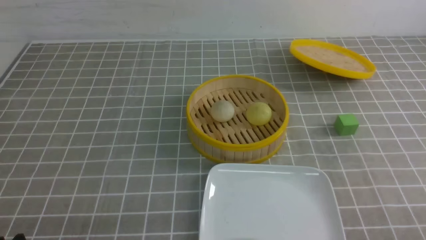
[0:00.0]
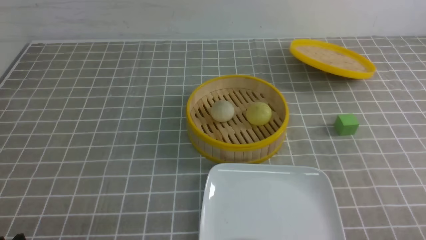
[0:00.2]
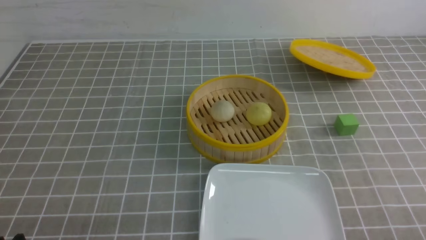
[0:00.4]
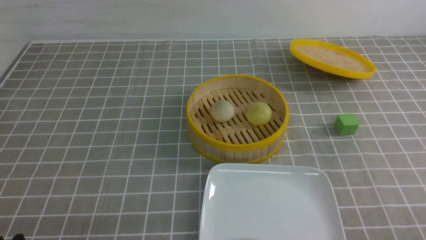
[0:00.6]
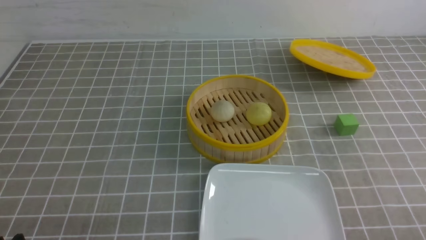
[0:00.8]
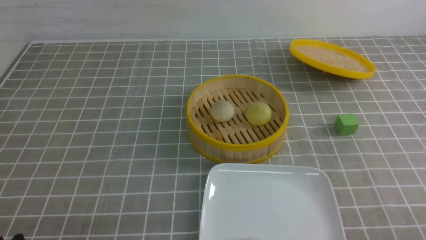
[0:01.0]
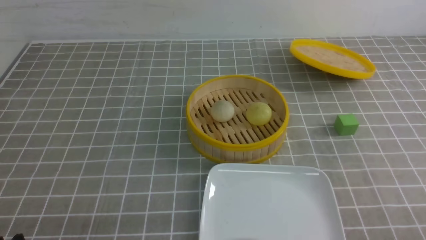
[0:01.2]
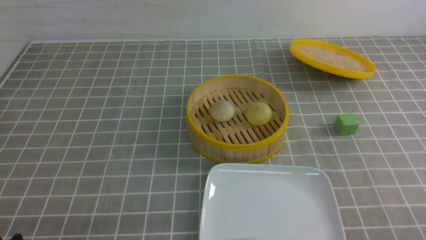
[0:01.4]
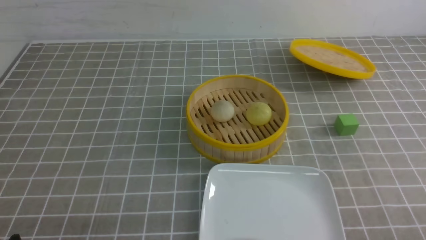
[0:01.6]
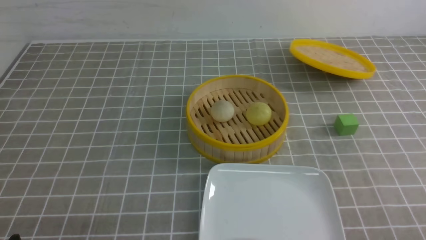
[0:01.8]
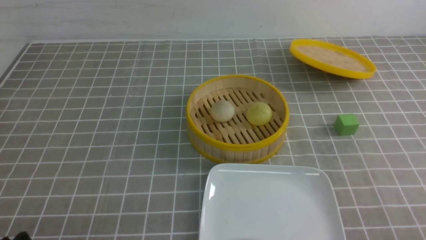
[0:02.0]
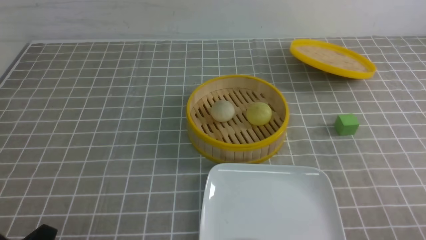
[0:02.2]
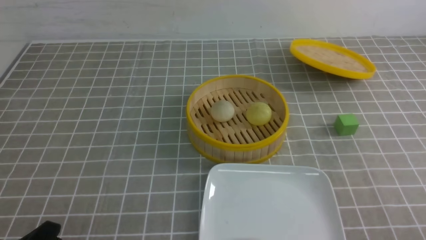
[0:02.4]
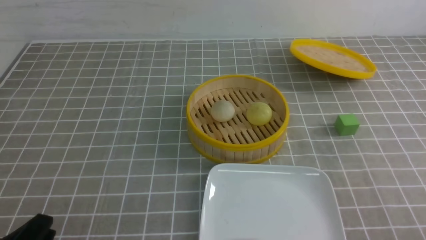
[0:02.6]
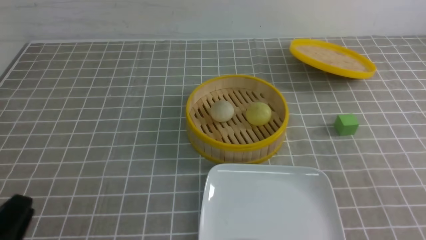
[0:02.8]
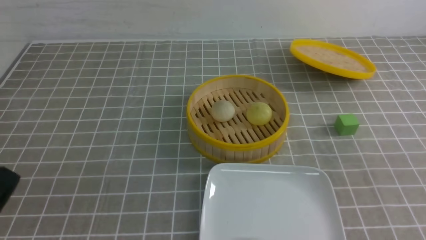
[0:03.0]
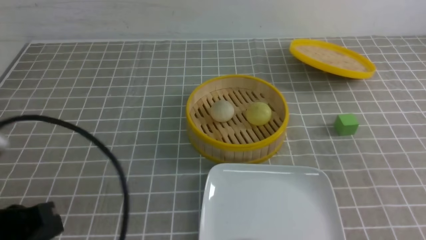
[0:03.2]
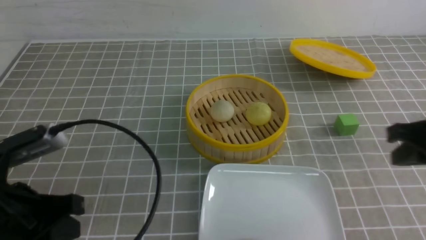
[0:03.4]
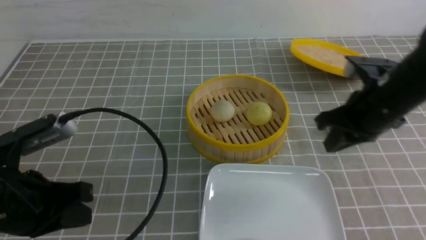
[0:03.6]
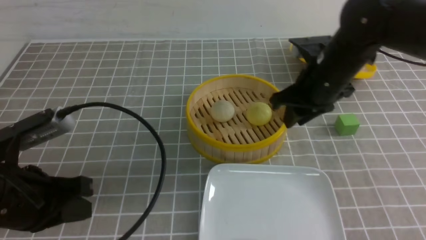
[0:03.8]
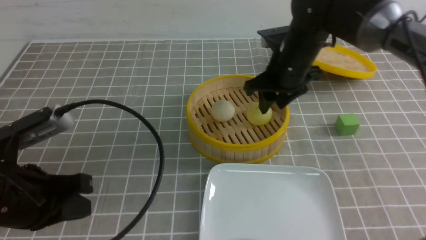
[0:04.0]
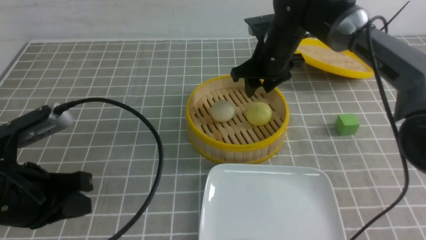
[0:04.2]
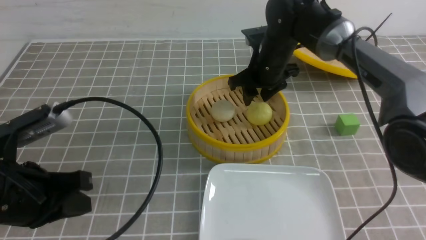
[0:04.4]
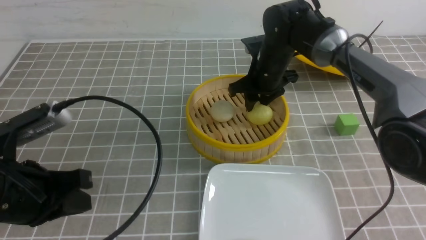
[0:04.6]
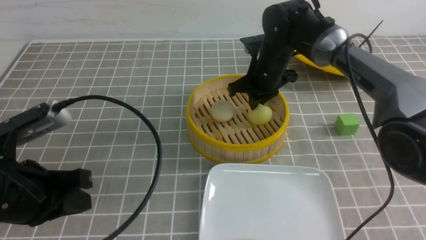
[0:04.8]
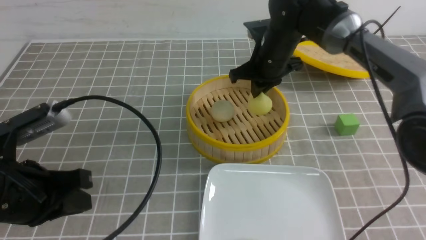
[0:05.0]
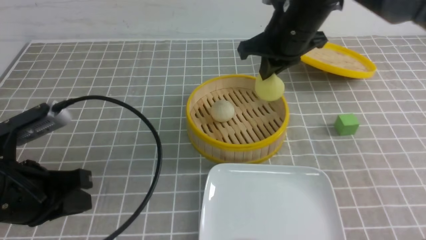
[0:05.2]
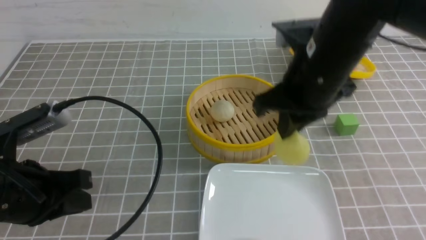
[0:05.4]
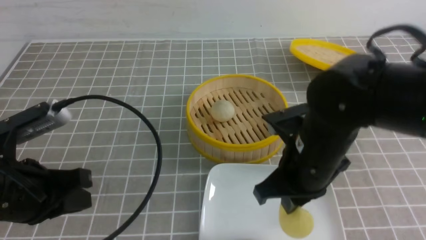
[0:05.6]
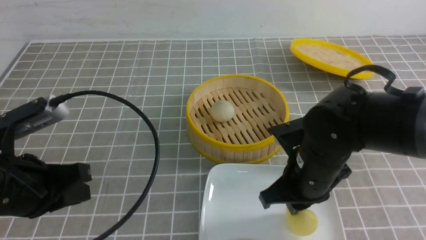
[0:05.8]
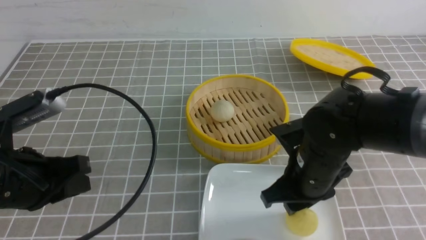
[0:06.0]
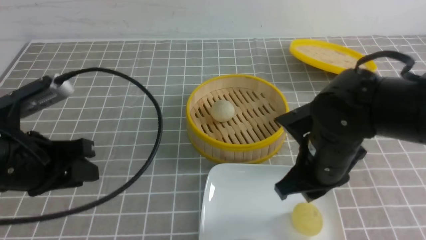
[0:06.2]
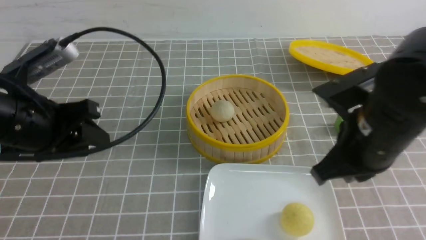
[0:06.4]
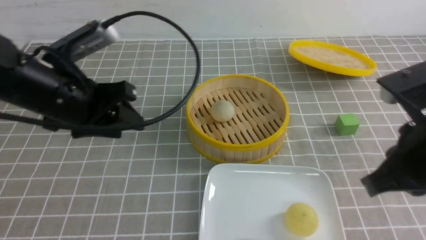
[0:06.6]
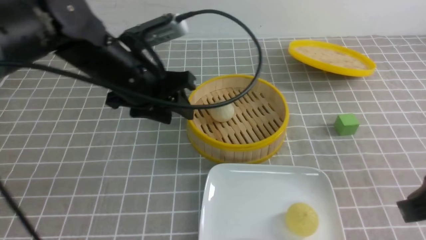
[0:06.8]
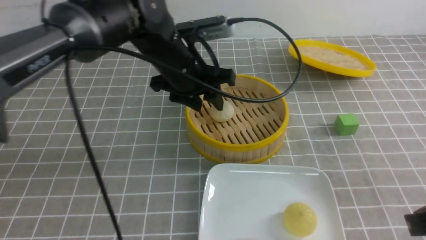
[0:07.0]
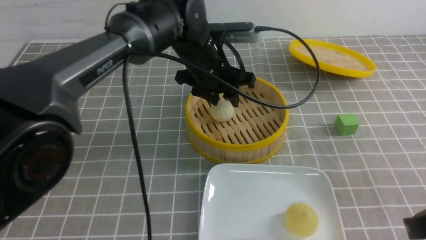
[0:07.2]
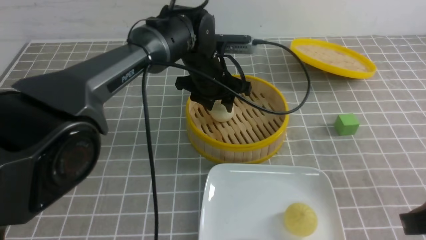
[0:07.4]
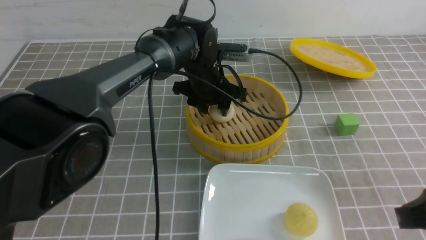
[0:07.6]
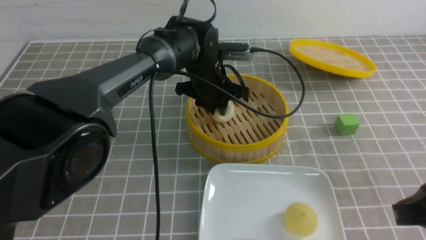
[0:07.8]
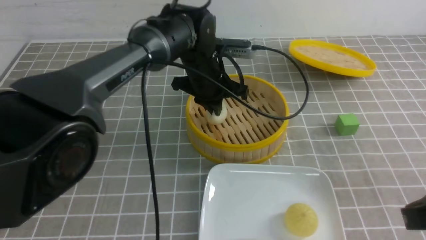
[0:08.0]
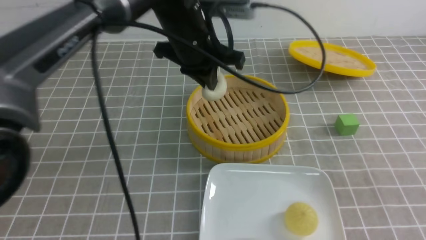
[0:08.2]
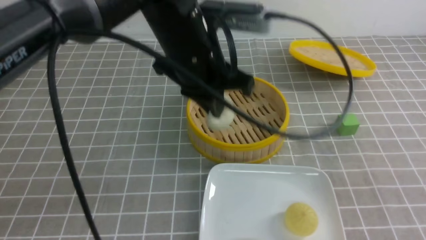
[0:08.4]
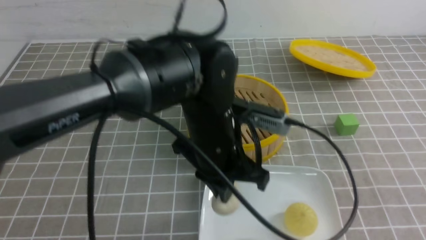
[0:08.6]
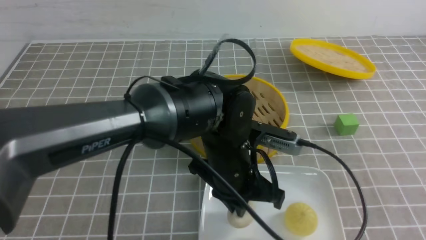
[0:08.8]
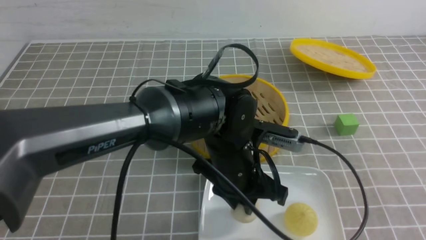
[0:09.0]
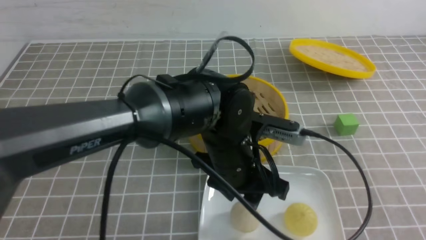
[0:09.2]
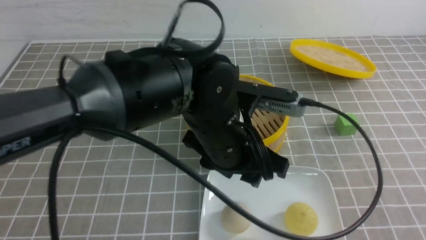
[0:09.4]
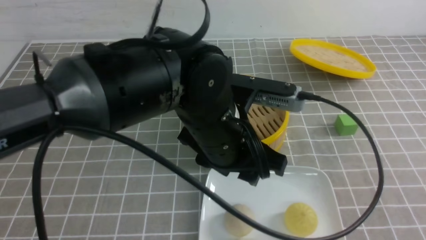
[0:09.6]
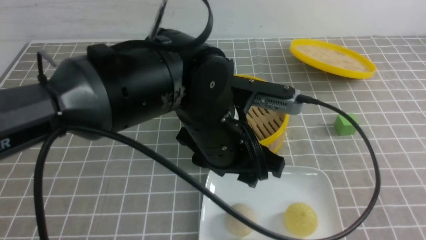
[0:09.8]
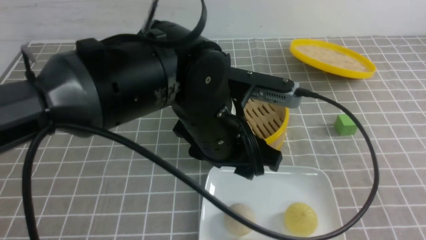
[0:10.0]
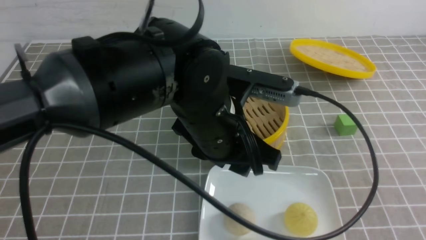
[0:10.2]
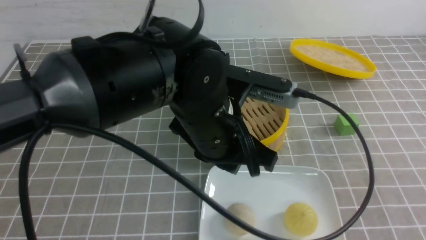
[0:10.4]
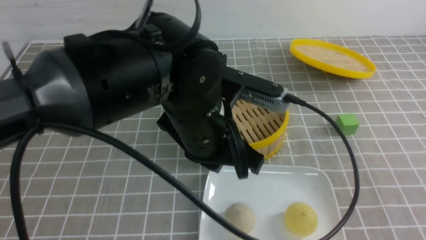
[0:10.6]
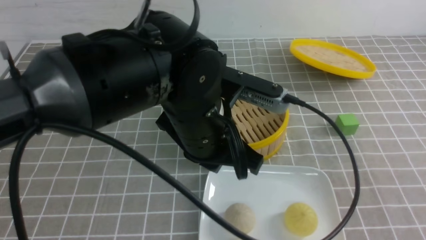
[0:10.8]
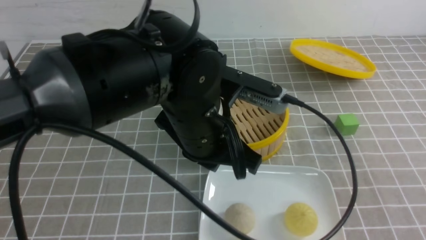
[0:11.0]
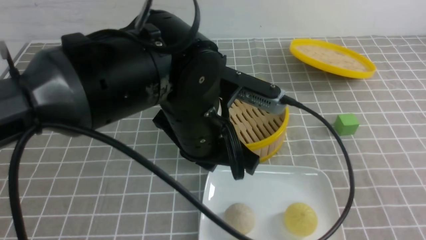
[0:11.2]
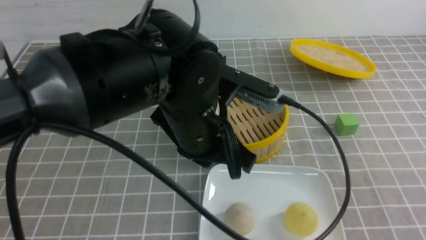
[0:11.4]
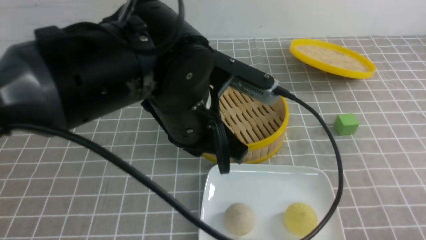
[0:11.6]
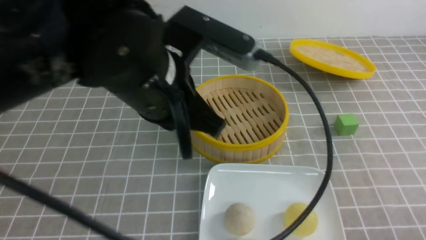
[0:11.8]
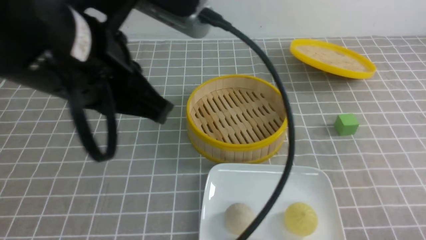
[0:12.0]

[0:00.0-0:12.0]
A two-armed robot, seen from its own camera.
Step, 0:00.0 to 0:04.8: use the right arm to grab the steamed stuffed bun that is closest to it.
Step, 0:05.2 to 0:05.8: use the right arm to put the steamed stuffed bun into the plate.
Step, 0:06.0 to 0:08.0: use the left arm to grab the steamed stuffed bun that is closest to it.
Step, 0:08.2 to 0:09.0: use the left arm to put the steamed stuffed bun into the plate.
0:03.0 to 0:04.4: The left gripper is displaced forward by some 10 cm. Meanwhile the right gripper travels forward and to the left by some 40 cm, and opens its fingers.
0:04.4 to 0:06.0: The right gripper shifts some 20 cm backward, and closes.
0:06.0 to 0:07.6: The right gripper heads backward, to the right and upward, covering about 20 cm, and closes its fingers. The left gripper moves forward and to the right, about 35 cm, and opens its fingers.
0:07.6 to 0:09.0: The right gripper goes roughly 10 cm to the right and backward, while the left gripper shifts some 20 cm backward, and closes.
0:09.0 to 0:10.4: The left gripper shifts some 10 cm upward, and opens and closes again.
0:10.4 to 0:12.0: The right gripper heads downward, covering some 15 cm. Meanwhile the left gripper shifts some 15 cm upward and to the left, and closes its fingers.

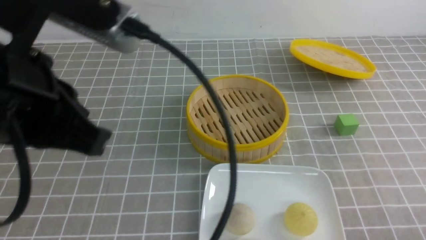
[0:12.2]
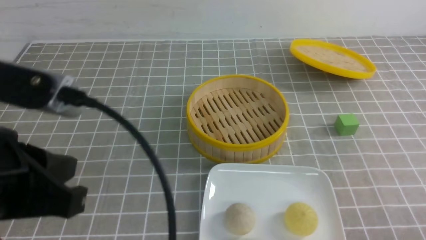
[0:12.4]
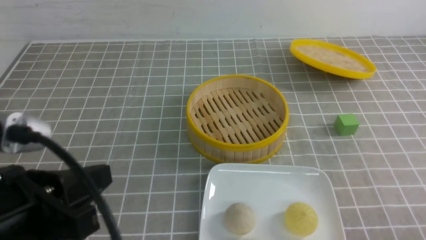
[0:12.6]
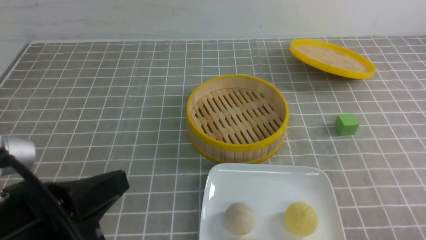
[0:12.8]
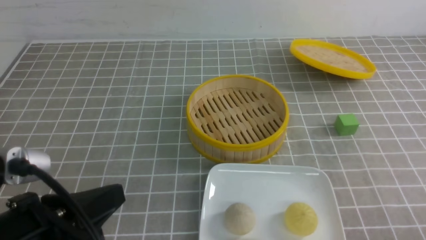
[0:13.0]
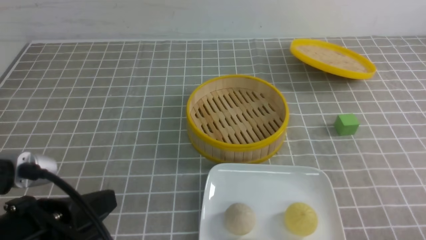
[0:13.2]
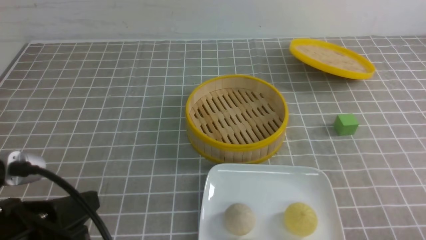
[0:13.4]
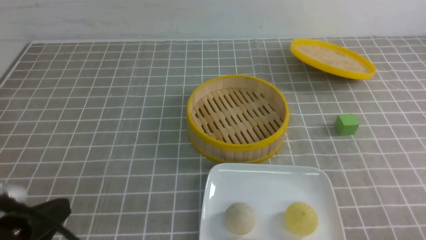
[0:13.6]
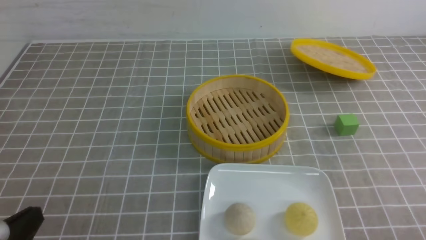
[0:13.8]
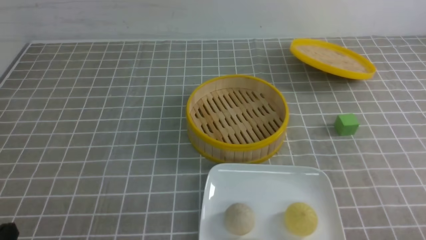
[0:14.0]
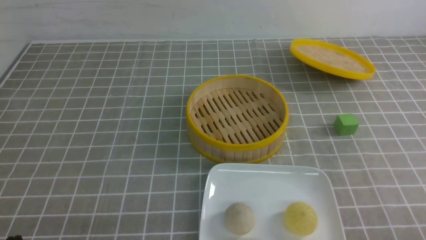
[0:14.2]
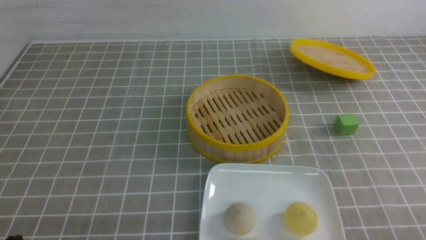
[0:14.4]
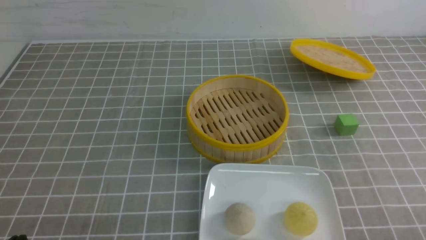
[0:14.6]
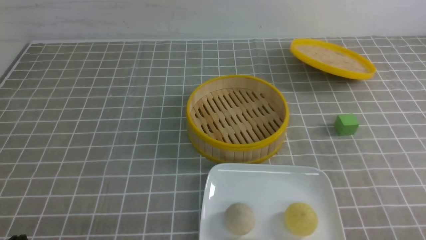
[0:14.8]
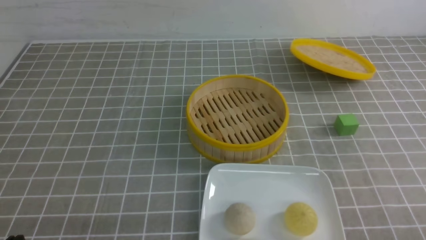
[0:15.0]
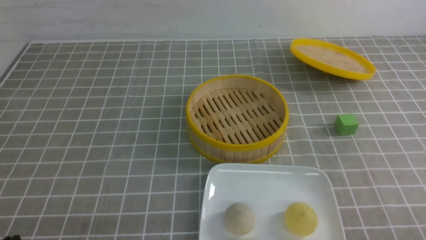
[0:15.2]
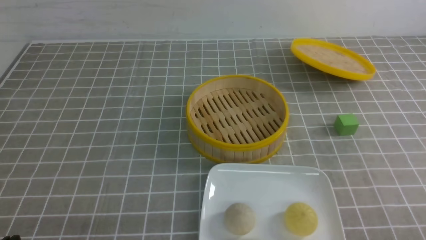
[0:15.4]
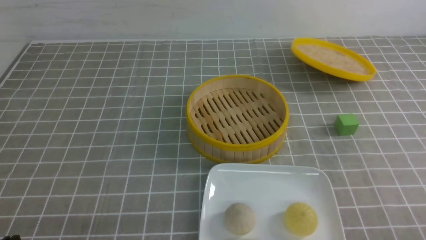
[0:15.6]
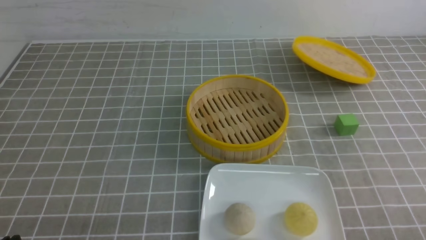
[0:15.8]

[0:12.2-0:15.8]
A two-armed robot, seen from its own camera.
0:12.2 to 0:14.0: The left gripper is displaced downward, to the left and backward by about 25 cm.
